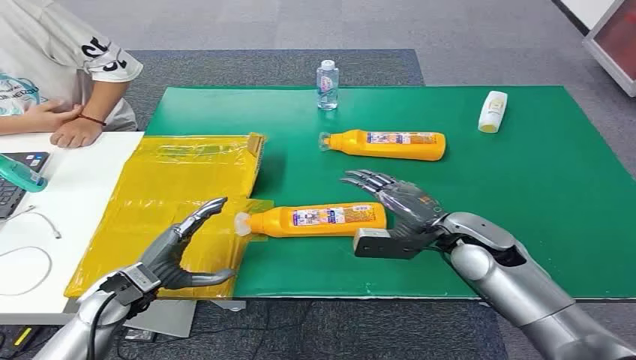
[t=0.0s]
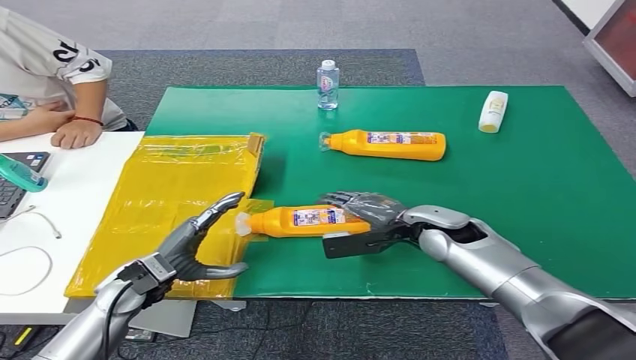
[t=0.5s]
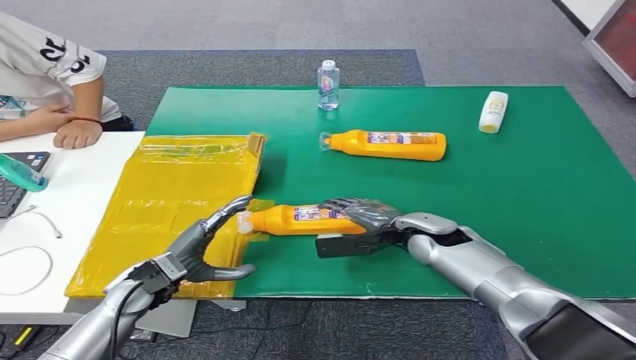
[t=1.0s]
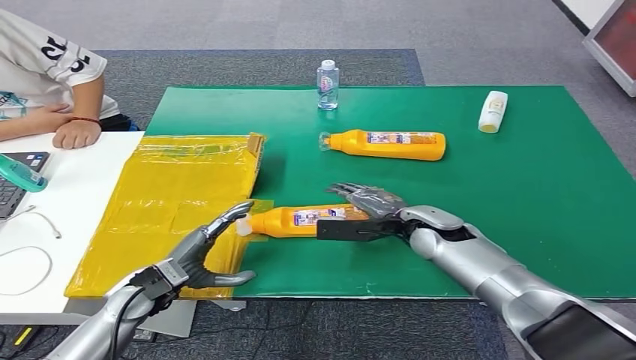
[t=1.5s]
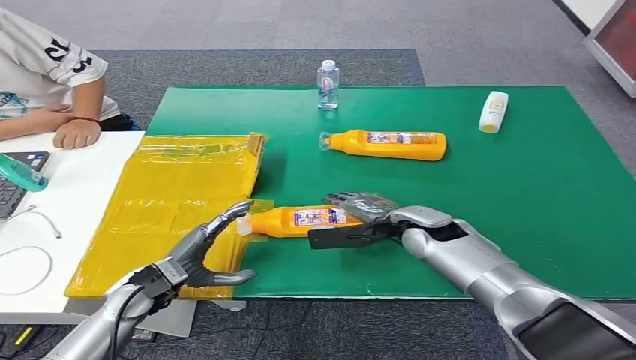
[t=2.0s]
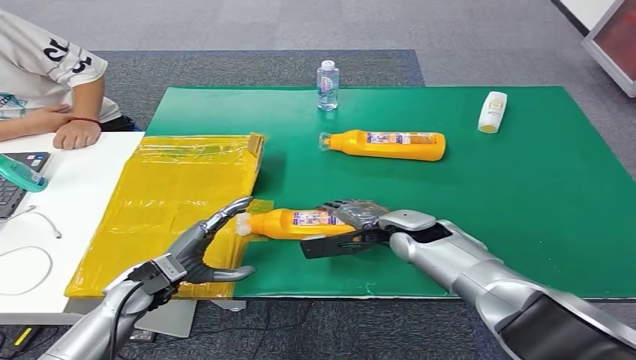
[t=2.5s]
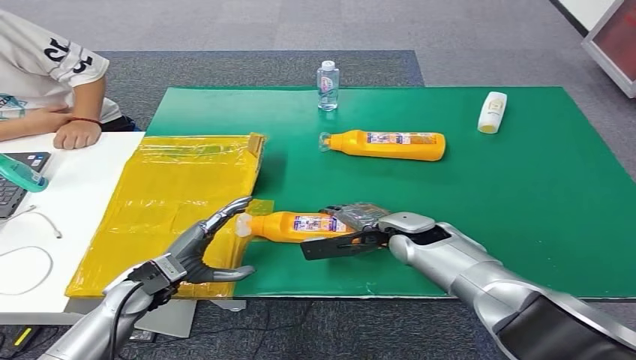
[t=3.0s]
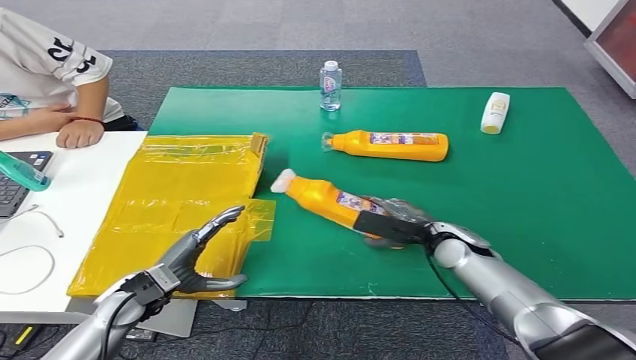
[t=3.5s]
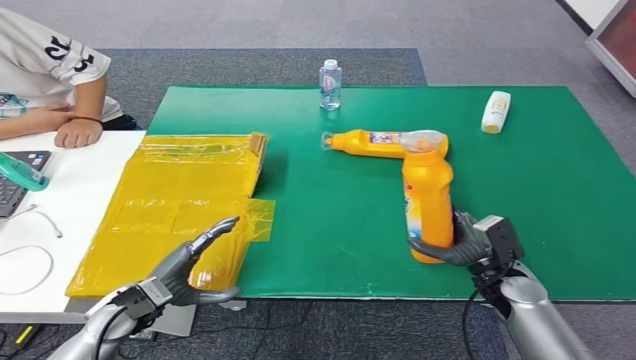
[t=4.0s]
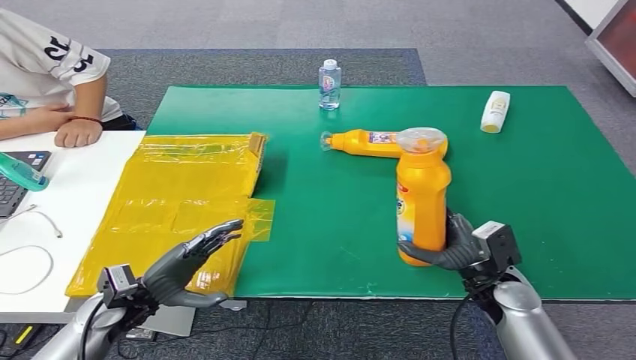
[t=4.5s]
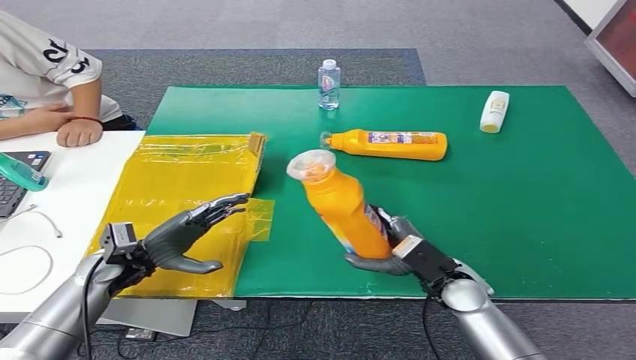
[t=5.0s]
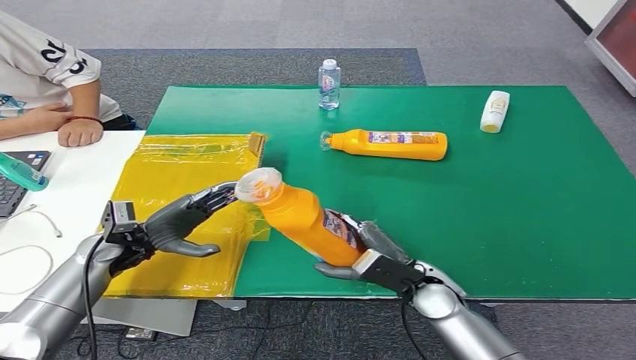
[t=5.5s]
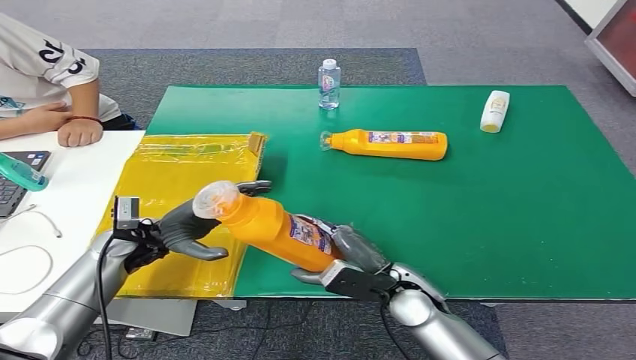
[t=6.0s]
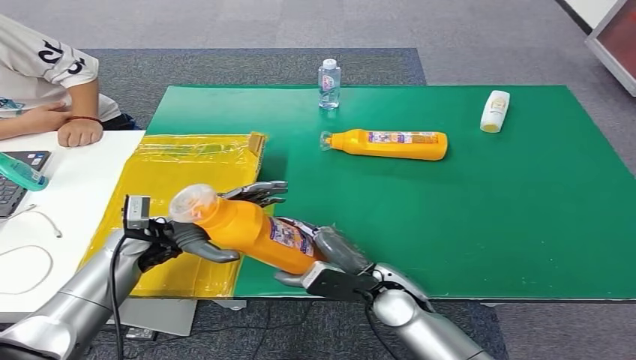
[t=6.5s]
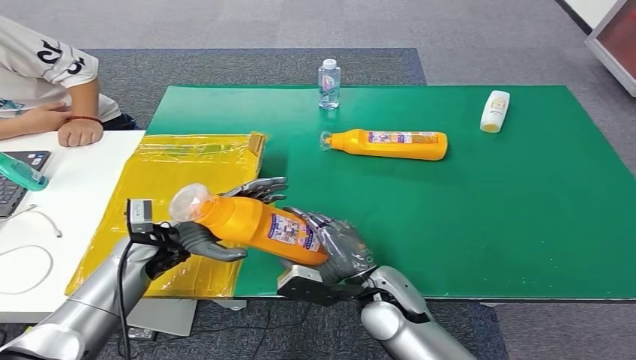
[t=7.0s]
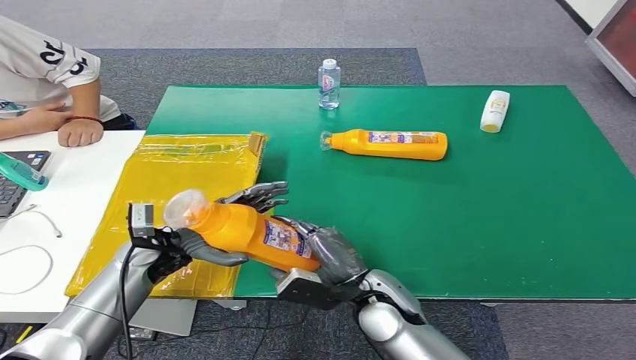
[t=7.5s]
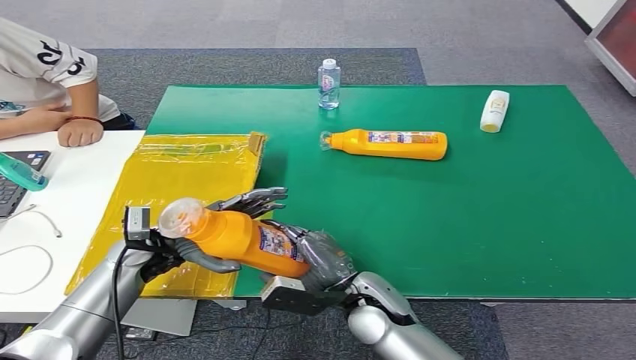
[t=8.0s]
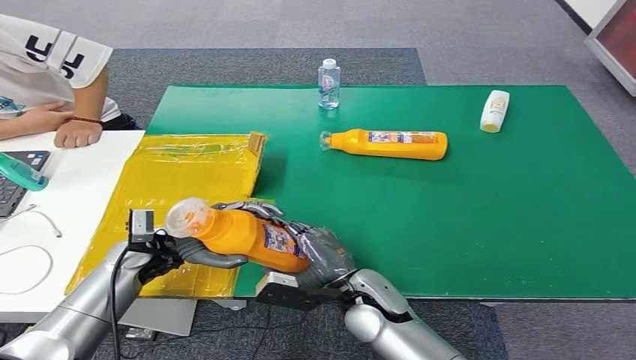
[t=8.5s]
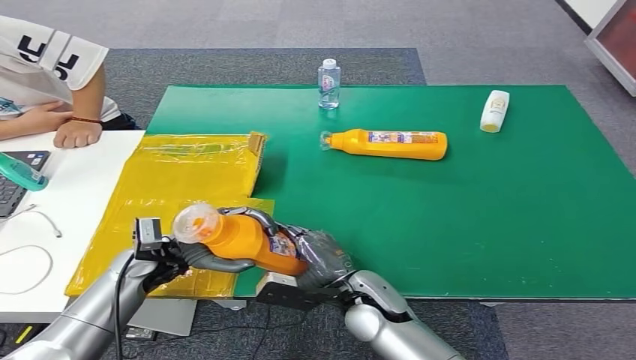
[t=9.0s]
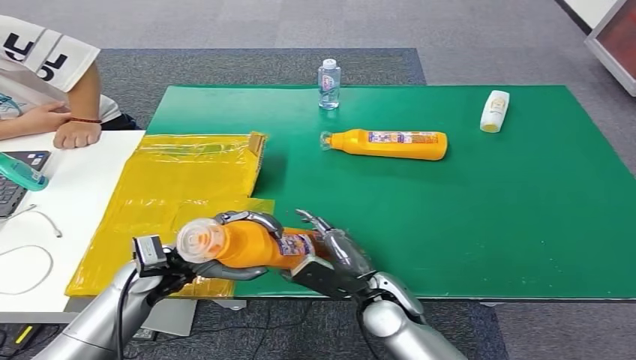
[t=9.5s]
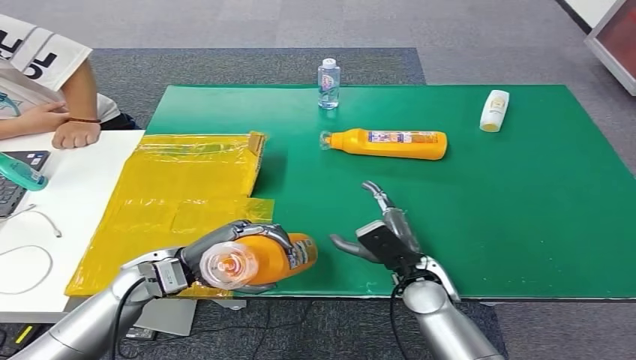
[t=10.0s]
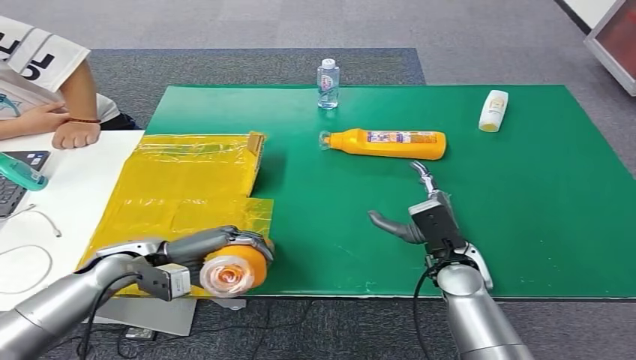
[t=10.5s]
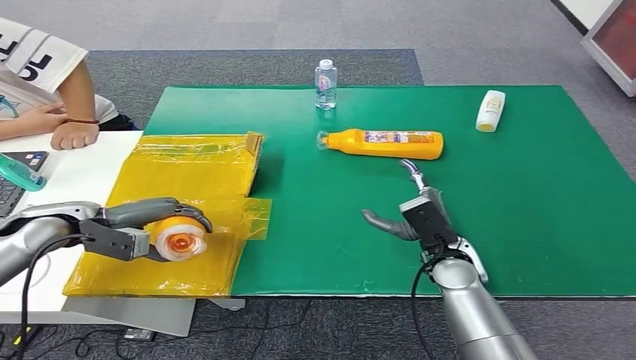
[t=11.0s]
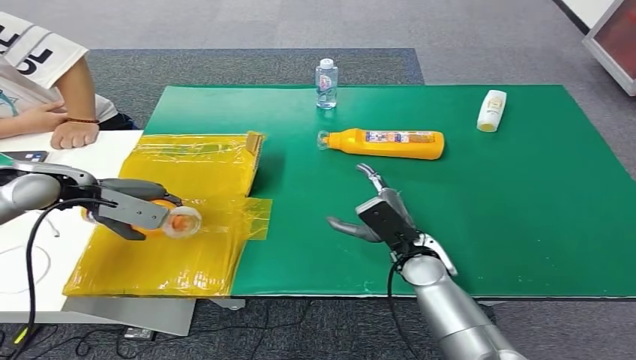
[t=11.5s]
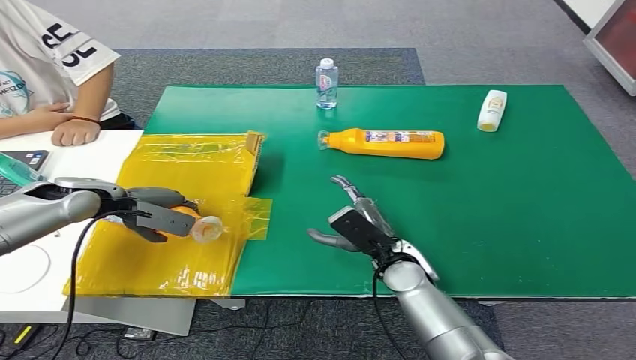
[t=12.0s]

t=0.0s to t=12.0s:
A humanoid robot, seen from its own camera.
Step, t=0.0s to t=4.5s: Pick up the bottle from the table.
t=2.0s to t=4.0s: The right hand shifts approximately 15 cm to the right, backward and downward.
t=6.0s to t=8.0s: The right hand shifts roughly 5 cm to the left.
t=8.0s to t=10.0s: The right hand goes roughly 10 cm to the right.

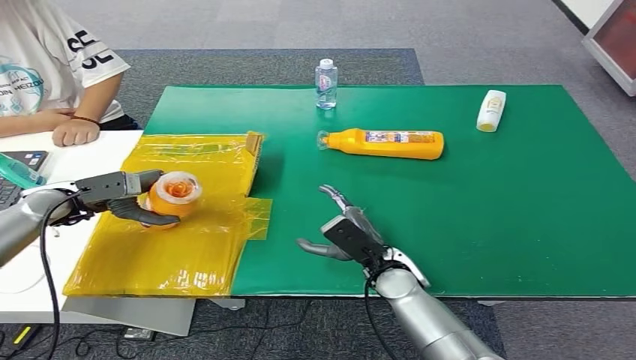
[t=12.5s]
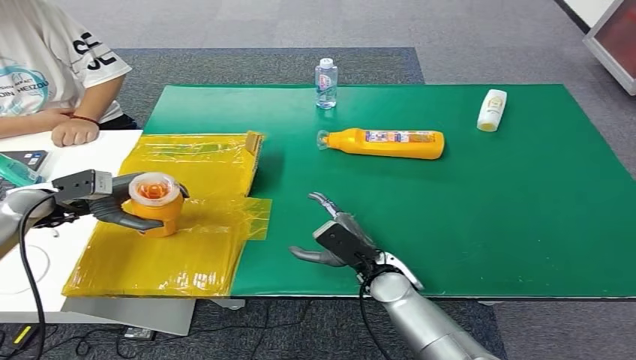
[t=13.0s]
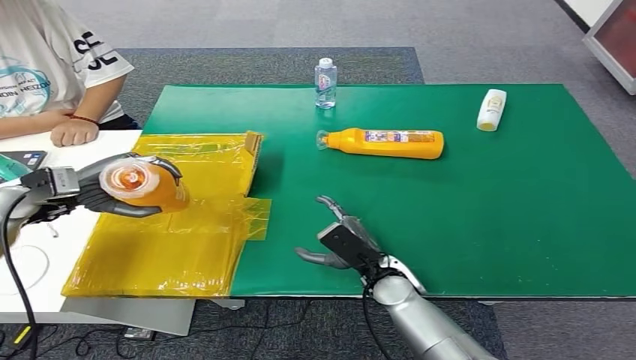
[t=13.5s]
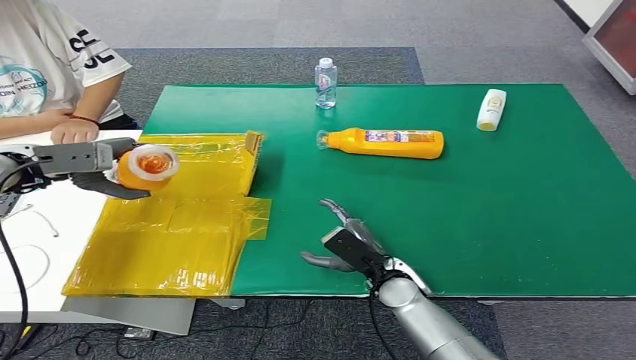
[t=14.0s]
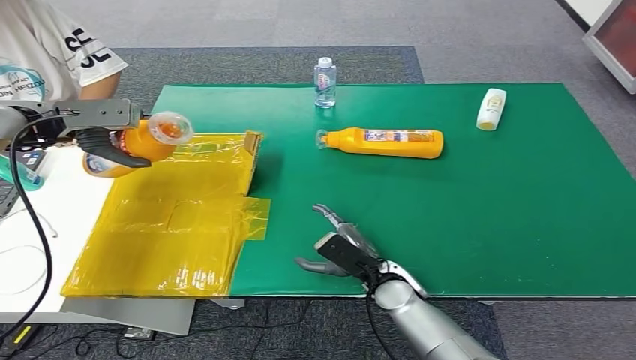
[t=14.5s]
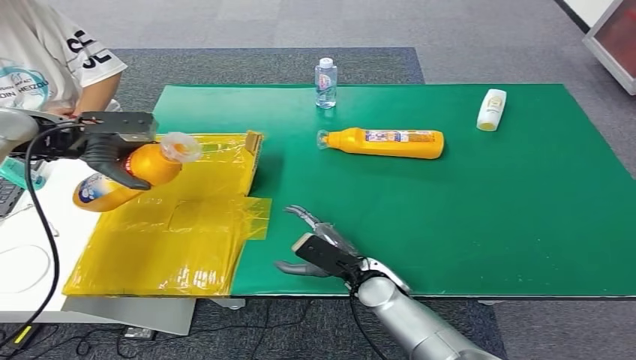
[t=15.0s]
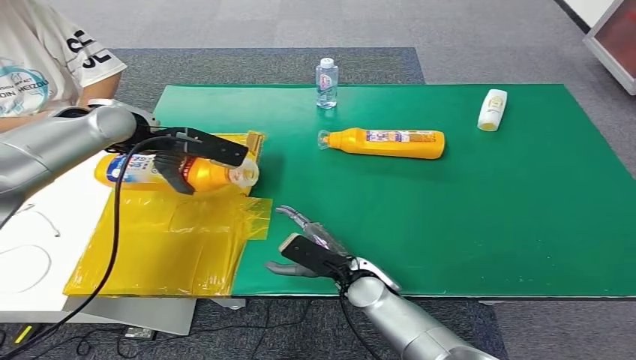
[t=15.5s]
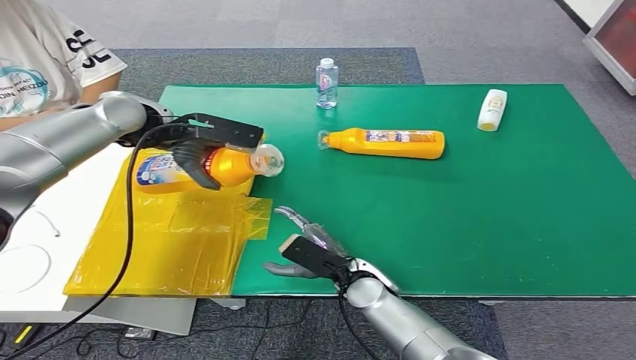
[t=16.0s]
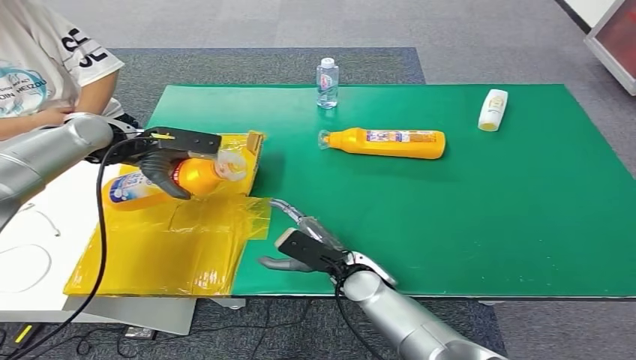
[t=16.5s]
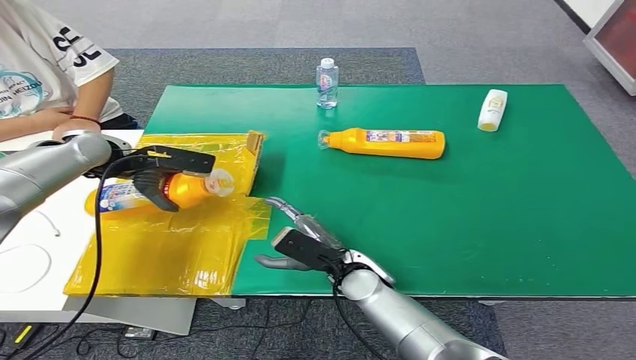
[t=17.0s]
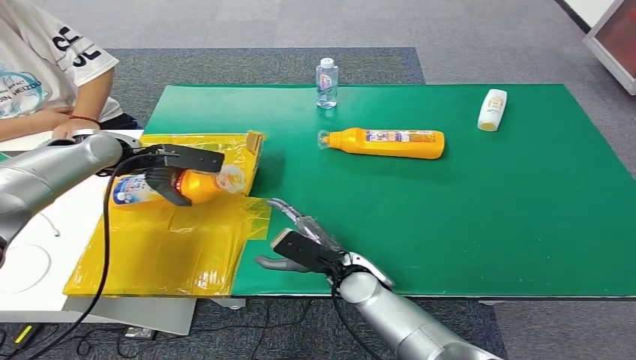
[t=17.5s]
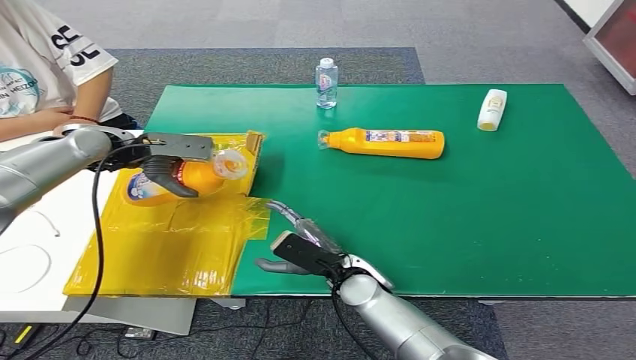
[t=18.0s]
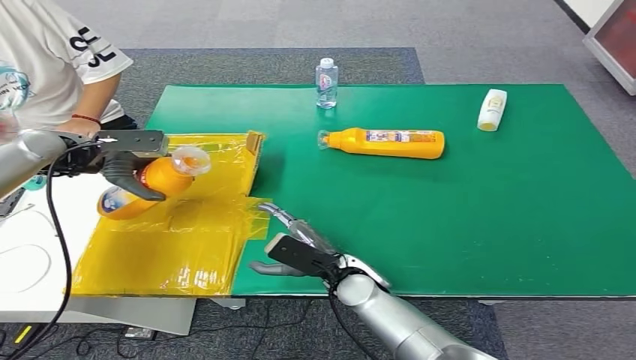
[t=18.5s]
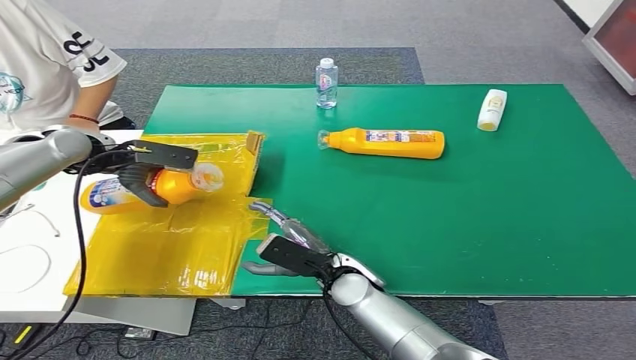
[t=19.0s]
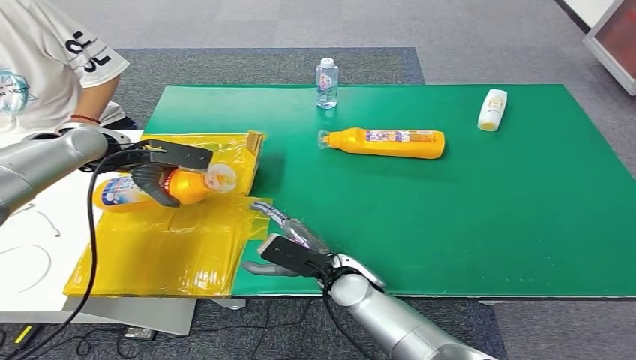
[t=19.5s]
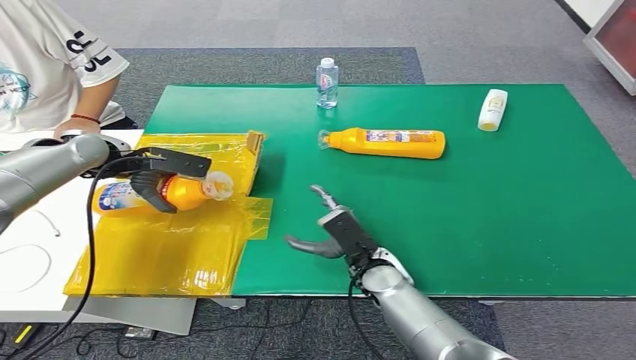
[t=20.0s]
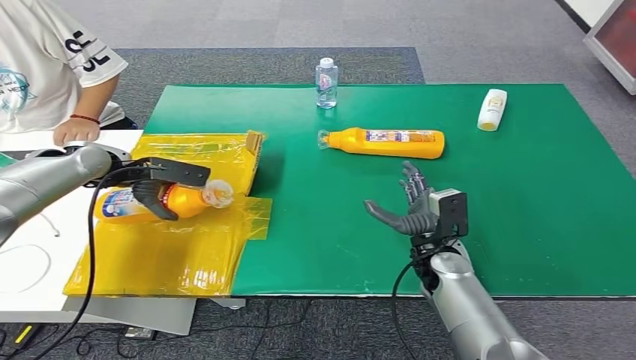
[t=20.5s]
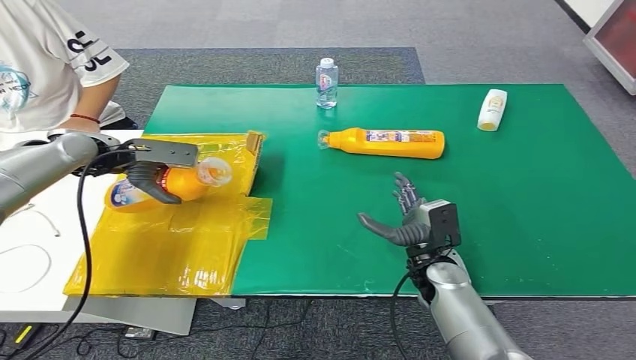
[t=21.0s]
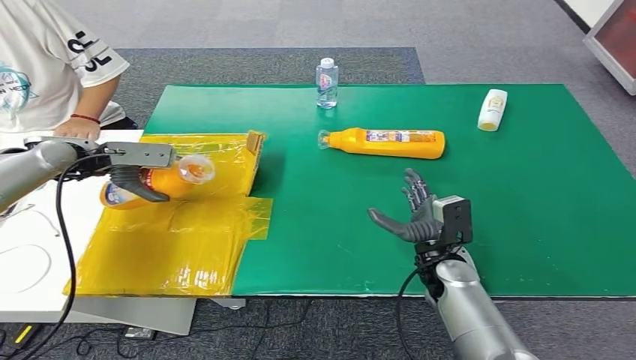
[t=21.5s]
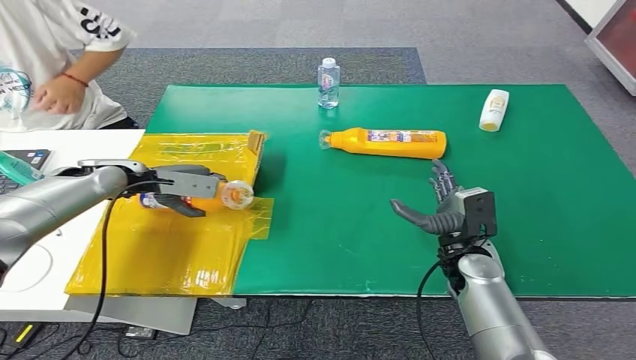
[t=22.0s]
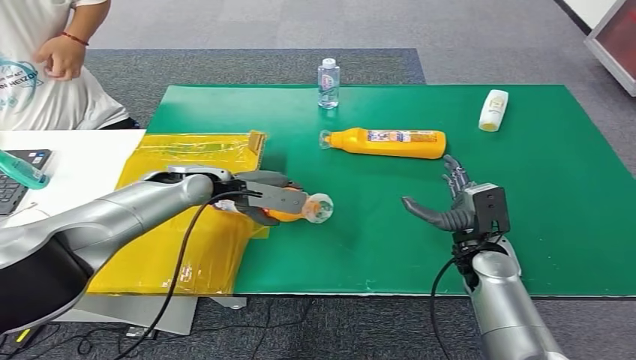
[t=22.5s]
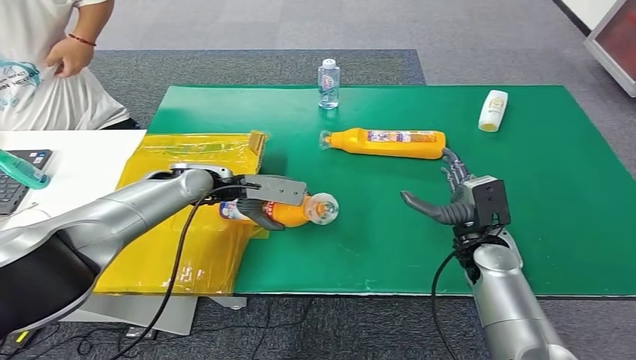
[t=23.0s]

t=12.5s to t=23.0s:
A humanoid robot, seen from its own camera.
t=12.5s to t=14.5s: The left hand heads upward and forward, covering about 15 cm.
t=14.5s to t=16.5s: The left hand shifts some 10 cm to the right. Meanwhile the right hand changes place by some 5 cm.
t=19.0s to t=21.0s: The right hand is displaced to the right by about 15 cm.
